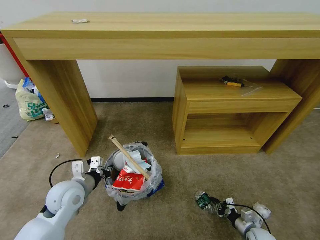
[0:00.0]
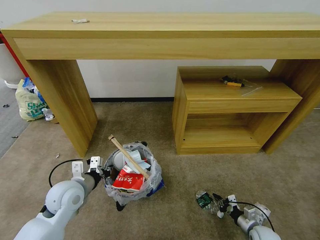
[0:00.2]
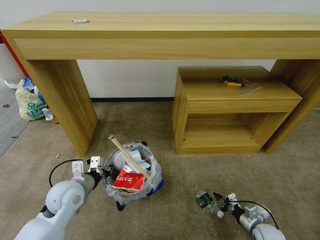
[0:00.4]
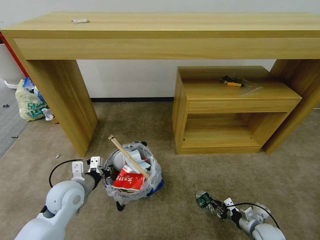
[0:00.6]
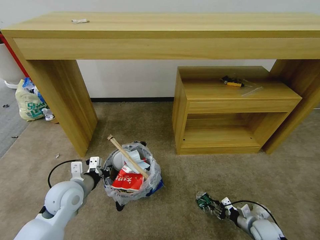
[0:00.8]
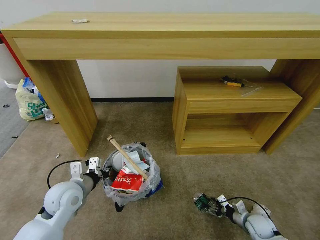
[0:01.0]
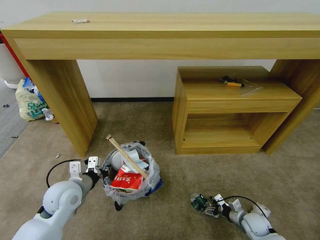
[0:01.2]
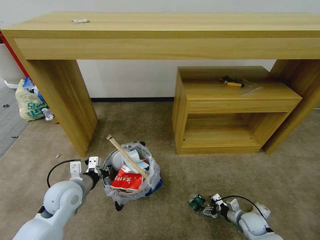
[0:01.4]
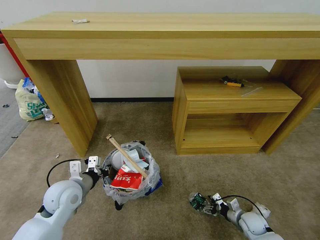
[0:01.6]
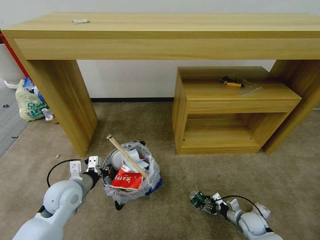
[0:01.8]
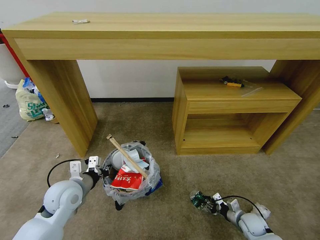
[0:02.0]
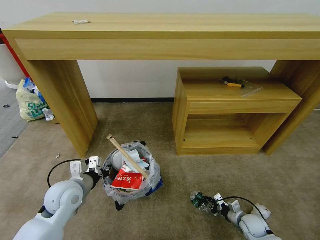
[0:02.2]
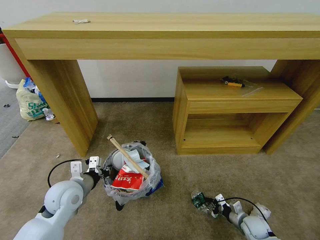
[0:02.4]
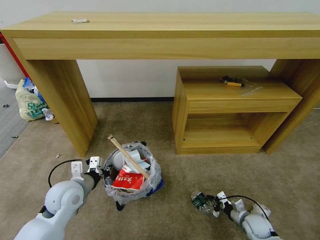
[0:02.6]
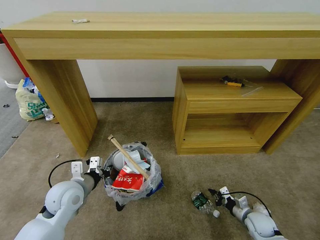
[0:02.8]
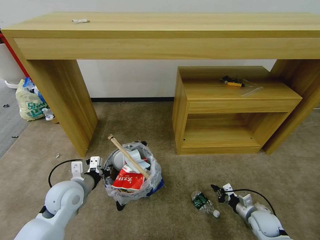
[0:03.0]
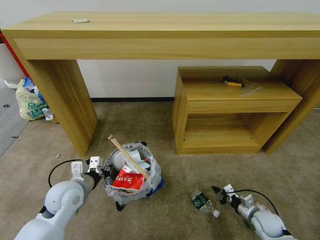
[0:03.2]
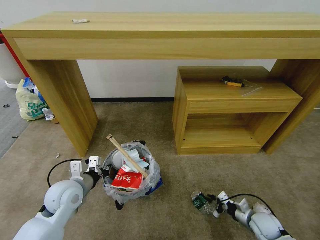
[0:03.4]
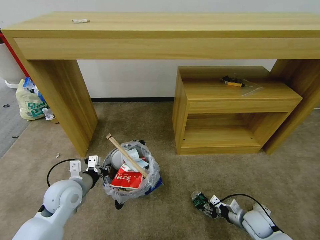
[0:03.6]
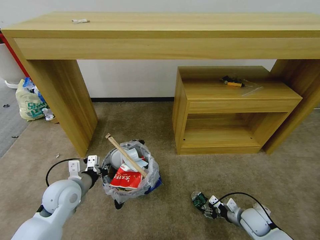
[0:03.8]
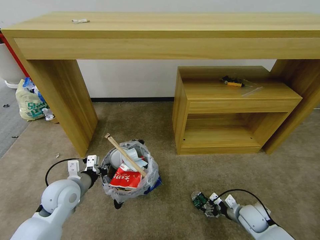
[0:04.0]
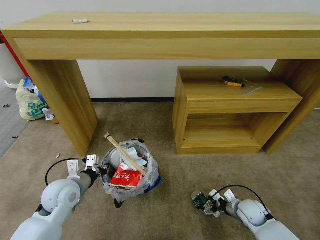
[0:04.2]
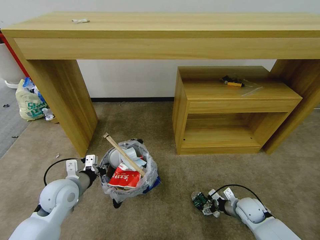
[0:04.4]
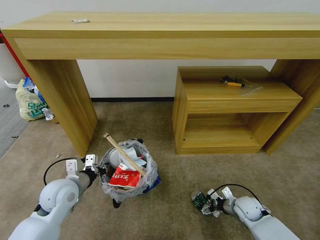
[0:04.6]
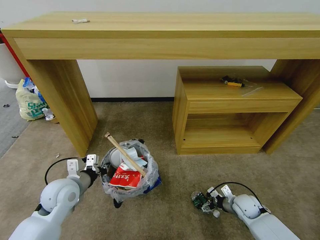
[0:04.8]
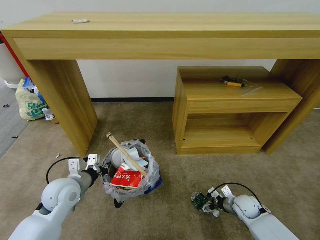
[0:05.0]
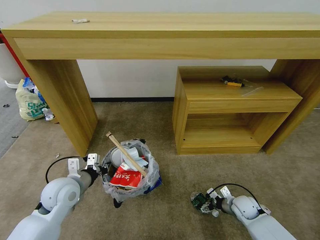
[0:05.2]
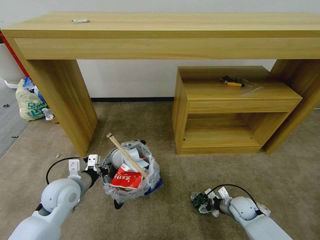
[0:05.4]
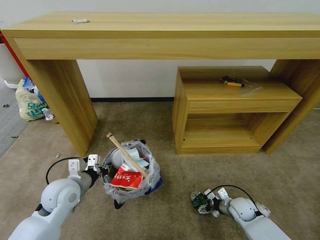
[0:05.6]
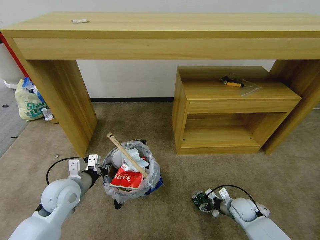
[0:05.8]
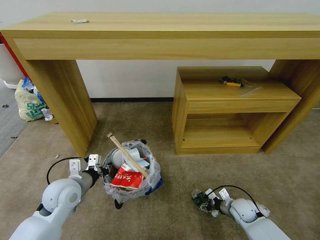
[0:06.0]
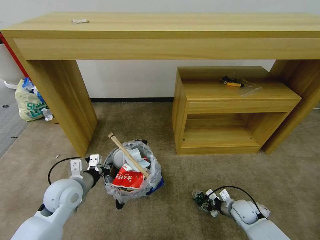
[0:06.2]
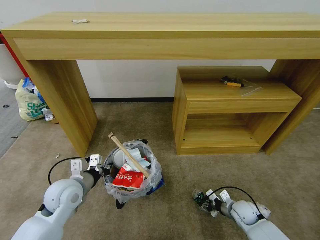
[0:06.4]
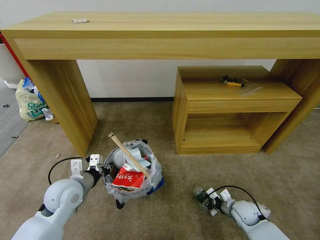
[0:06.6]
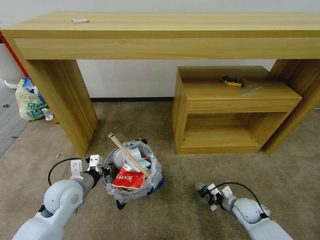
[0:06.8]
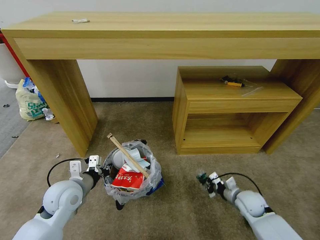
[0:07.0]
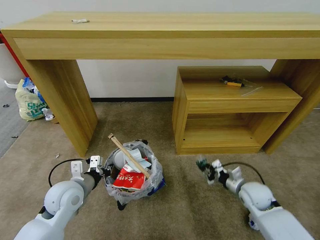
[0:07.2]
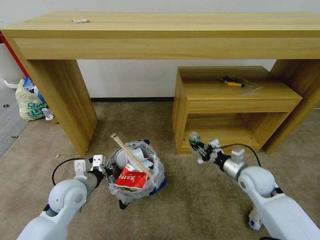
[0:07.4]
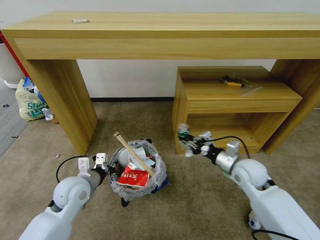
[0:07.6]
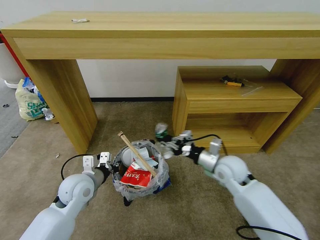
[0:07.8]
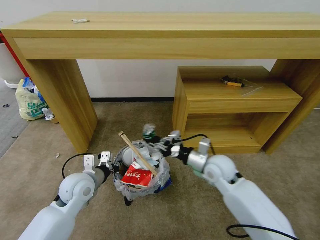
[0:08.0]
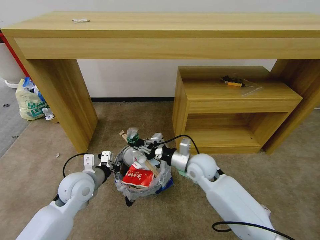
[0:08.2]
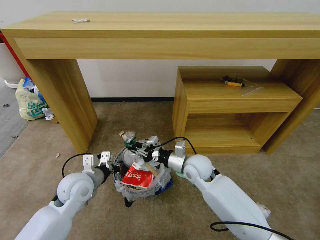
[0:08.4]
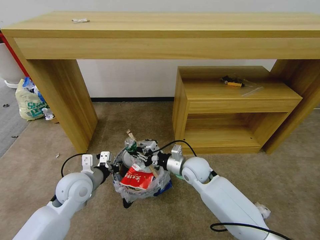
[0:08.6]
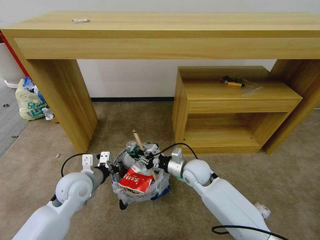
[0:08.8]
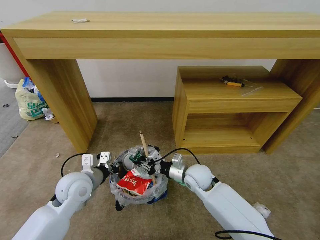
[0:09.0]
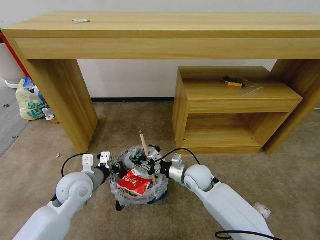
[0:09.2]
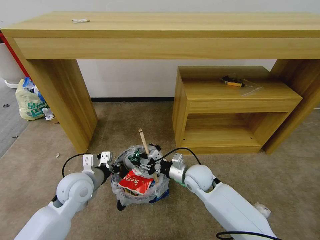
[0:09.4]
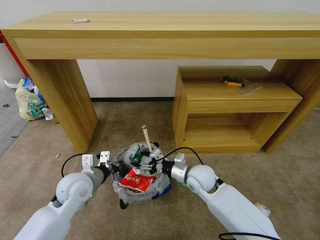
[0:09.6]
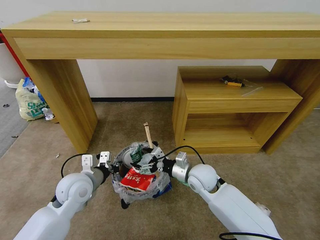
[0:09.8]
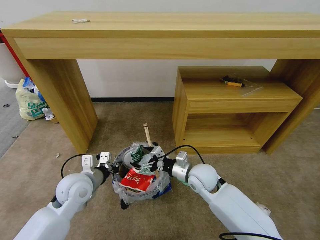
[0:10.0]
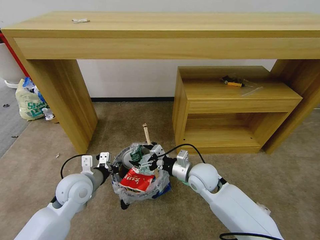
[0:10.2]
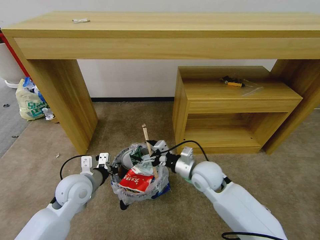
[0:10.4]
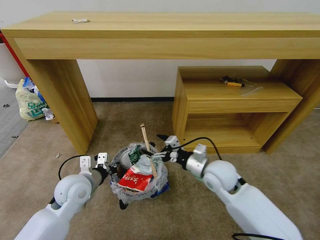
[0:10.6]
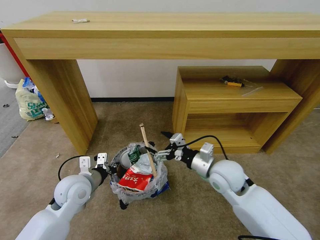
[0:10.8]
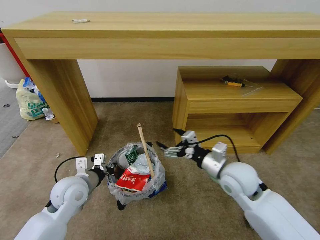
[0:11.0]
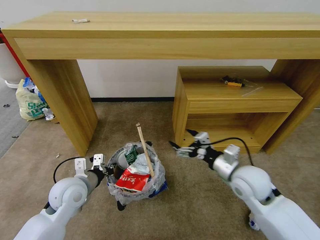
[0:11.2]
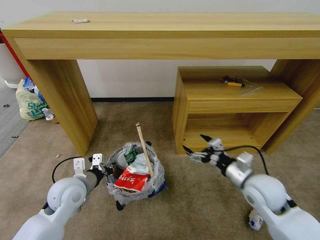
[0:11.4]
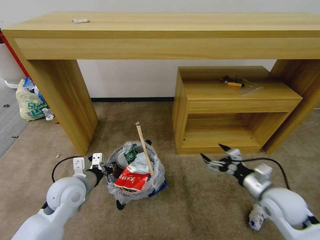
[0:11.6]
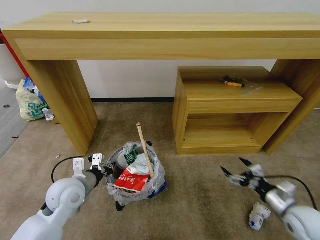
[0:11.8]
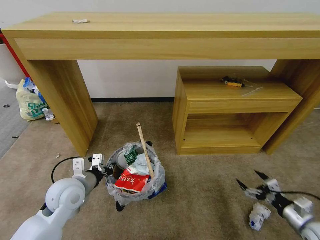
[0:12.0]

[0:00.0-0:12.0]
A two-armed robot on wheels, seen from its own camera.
Task of the whole recording: Pick up the trash bin and place the garbage on the floor into it.
0:00.0 to 0:01.6: The right gripper shifts approximately 5 cm forward, and opens.
0:01.6 to 0:03.0: The right gripper moves upward, some 5 cm, and closes up.
0:03.0 to 0:04.4: The right gripper shifts by some 5 cm, and opens its fingers.
0:04.4 to 0:06.0: The right gripper closes up.
0:06.0 to 0:07.6: The right gripper heads upward, covering roughly 20 cm, and closes its fingers.
0:07.6 to 0:09.0: The right gripper travels to the left and downward by roughly 15 cm.
0:09.0 to 0:10.4: The right gripper shifts about 5 cm upward, and opens up.
0:10.4 to 0:12.0: The right gripper heads to the right and backward, covering roughly 35 cm.

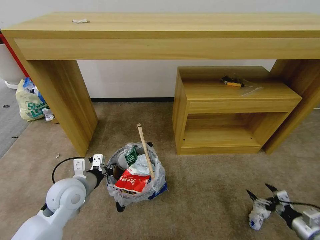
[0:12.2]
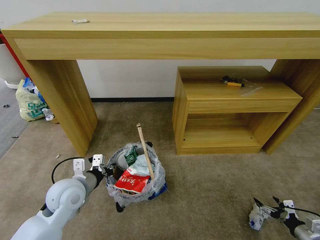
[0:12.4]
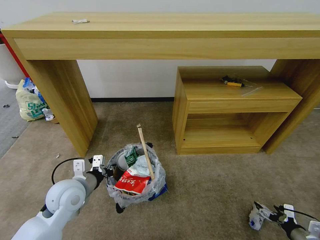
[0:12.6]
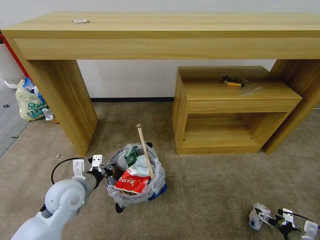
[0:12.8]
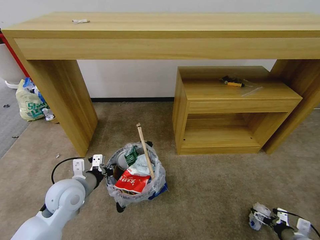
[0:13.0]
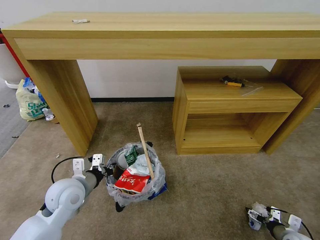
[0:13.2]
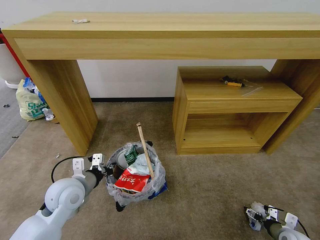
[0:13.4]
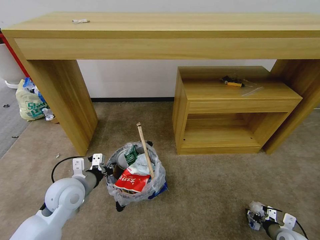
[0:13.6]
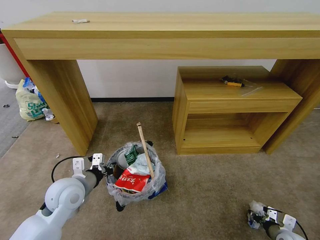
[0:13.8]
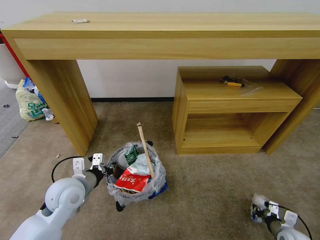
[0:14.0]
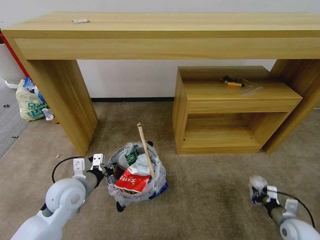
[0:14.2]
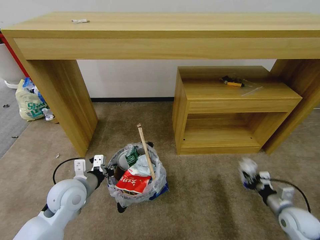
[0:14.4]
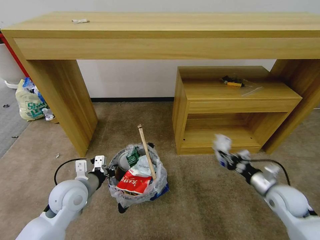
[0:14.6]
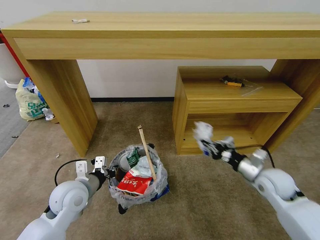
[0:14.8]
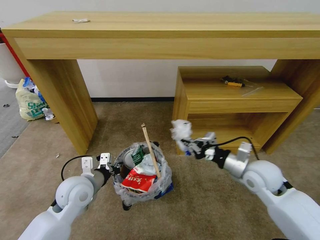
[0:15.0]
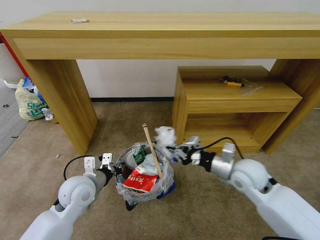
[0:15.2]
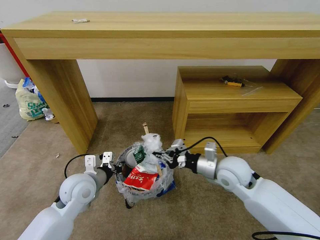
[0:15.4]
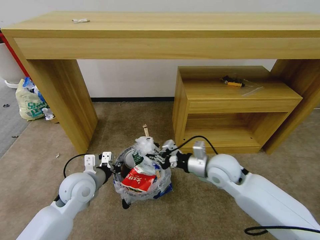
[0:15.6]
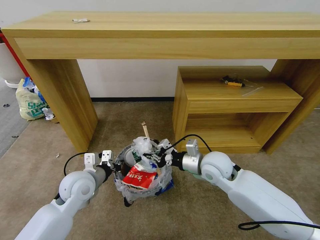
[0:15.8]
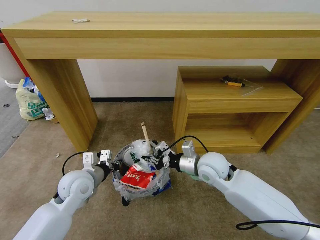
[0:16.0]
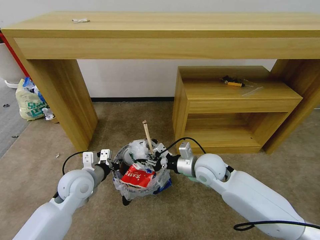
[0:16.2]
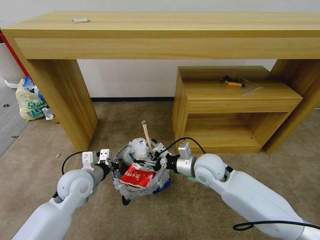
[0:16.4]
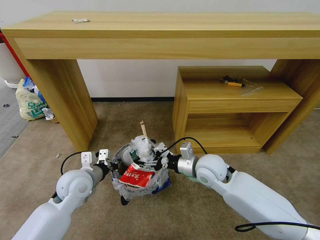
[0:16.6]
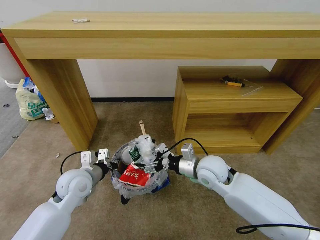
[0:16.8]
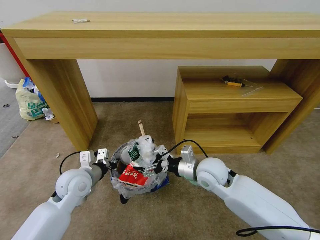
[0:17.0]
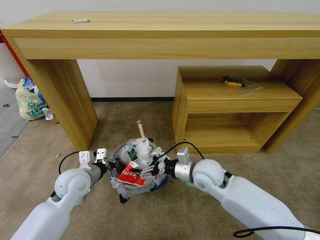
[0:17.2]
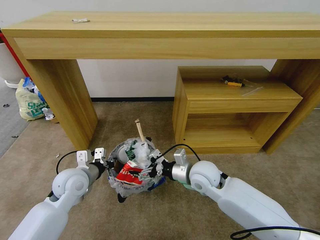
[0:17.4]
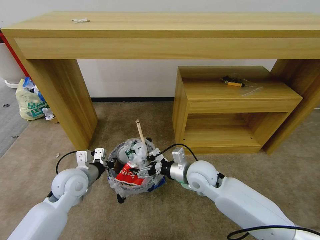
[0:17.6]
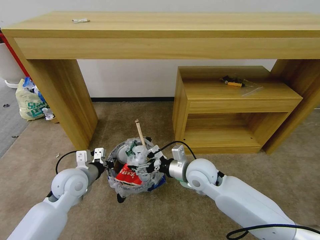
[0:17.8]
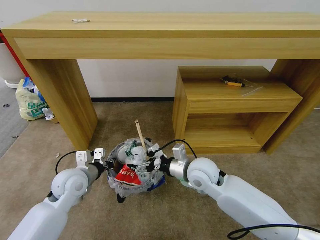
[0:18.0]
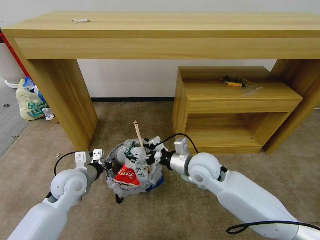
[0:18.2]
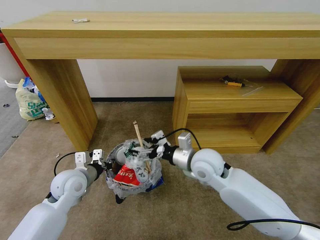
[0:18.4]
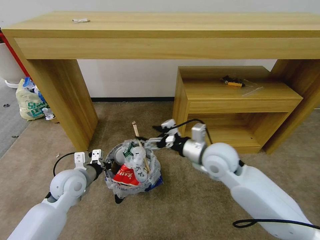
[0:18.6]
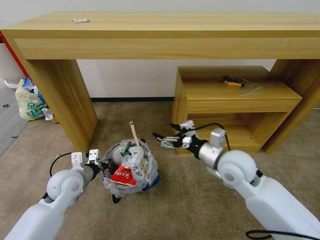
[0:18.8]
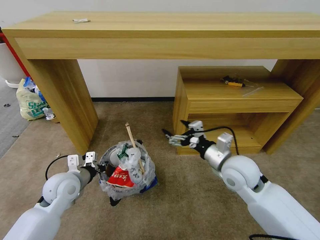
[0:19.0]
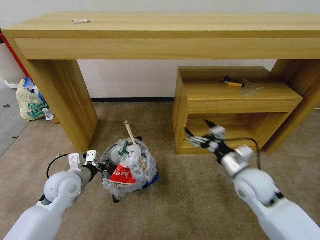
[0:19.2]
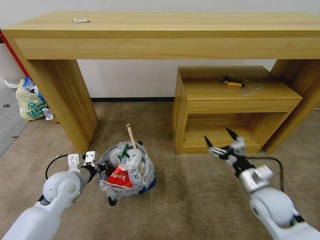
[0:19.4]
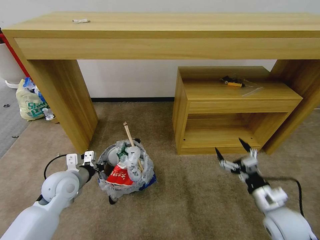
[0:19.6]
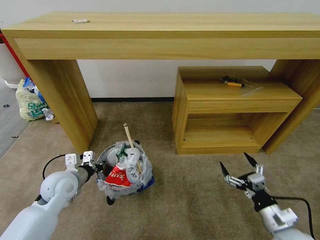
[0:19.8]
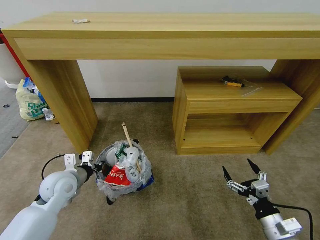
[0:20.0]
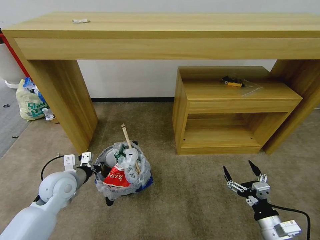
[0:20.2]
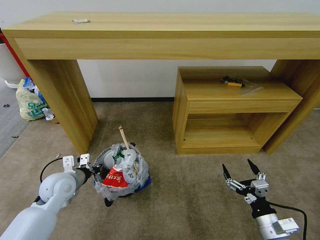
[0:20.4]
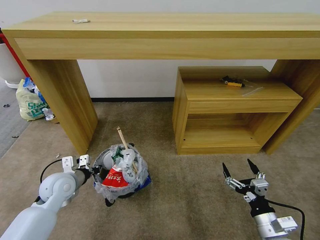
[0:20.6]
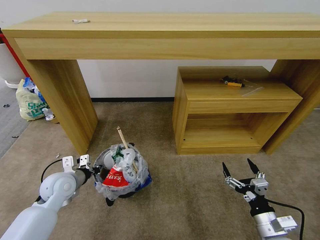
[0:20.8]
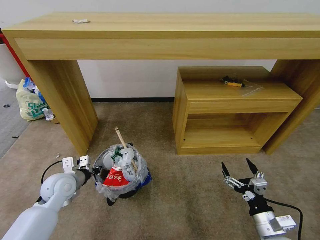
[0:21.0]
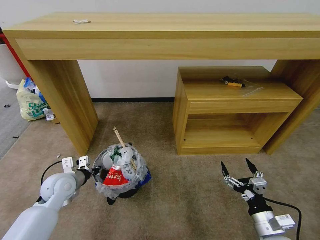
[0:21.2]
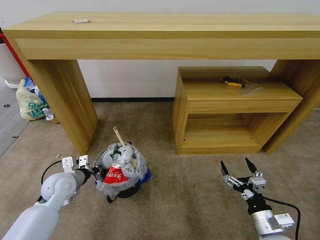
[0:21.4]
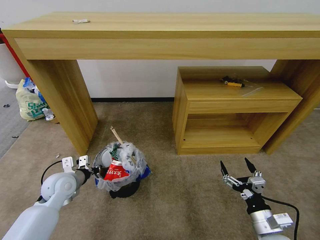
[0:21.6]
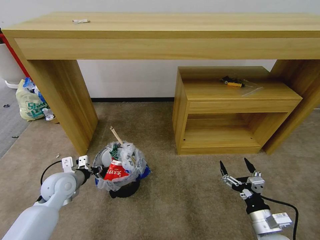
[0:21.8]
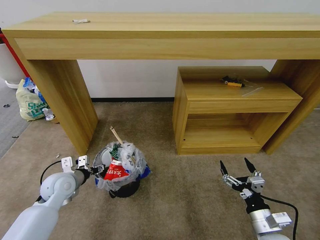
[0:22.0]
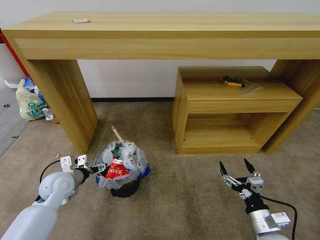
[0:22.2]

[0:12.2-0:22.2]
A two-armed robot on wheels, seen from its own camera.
Task of the whole recording: Pick up the trash bin and place the garbage on the floor into it.
0:12.2 to 0:13.6: The right gripper shifts roughly 10 cm downward, and closes up.
0:13.6 to 0:15.0: The right gripper goes approximately 35 cm upward, to the left and forward, and closes.
0:15.0 to 0:16.4: The right gripper goes approximately 15 cm to the left, and opens.
0:16.4 to 0:18.0: The right gripper opens its fingers.
0:18.0 to 0:19.4: The right gripper shifts approximately 20 cm to the right and backward.
0:19.4 to 0:20.8: The right gripper goes approximately 15 cm backward and downward.
0:20.8 to 0:22.2: The left gripper opens.
